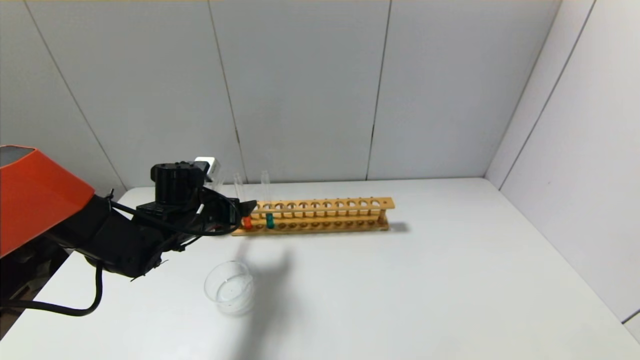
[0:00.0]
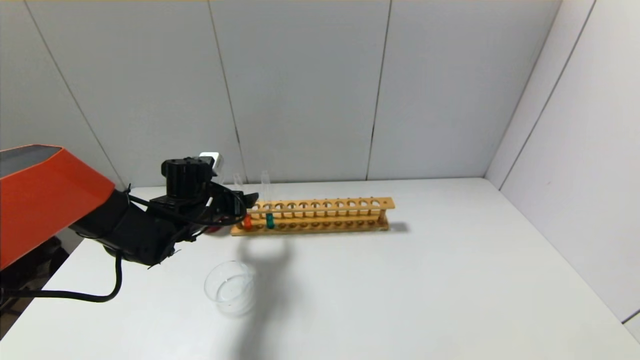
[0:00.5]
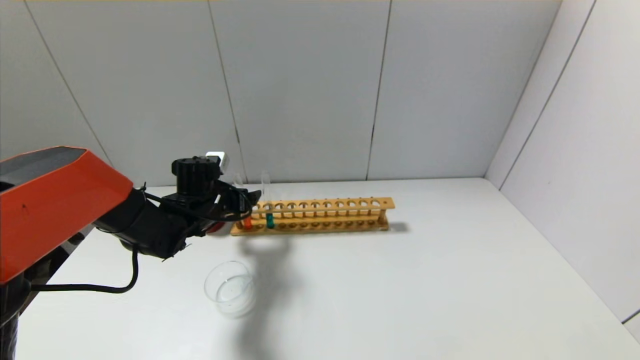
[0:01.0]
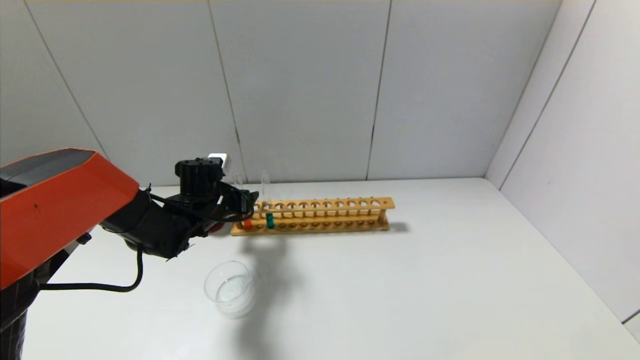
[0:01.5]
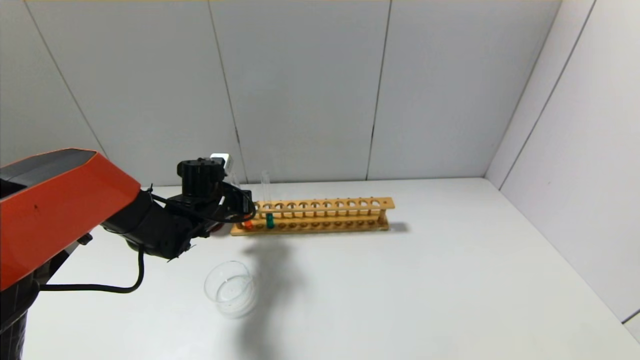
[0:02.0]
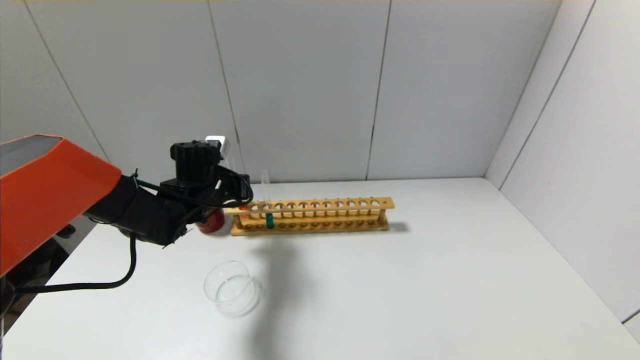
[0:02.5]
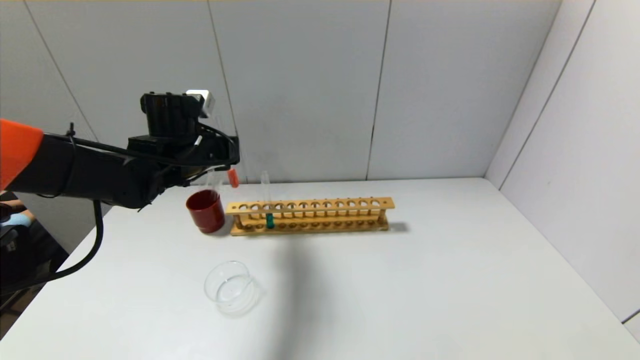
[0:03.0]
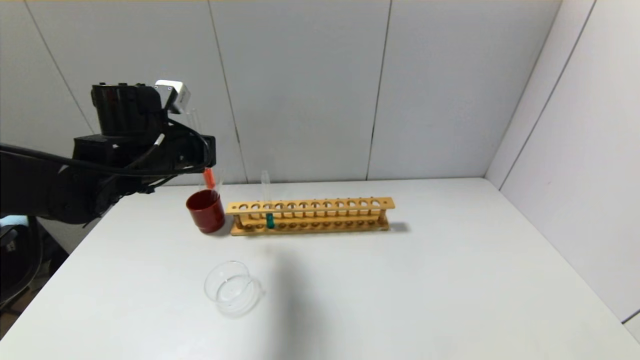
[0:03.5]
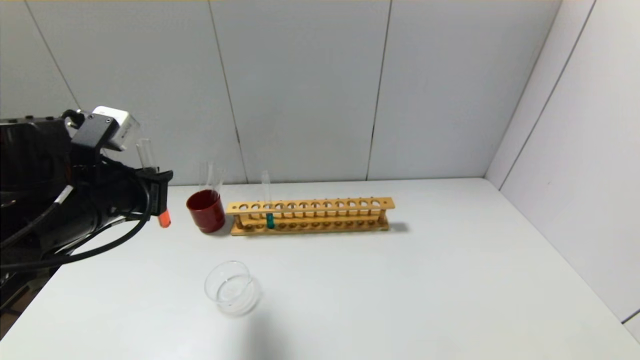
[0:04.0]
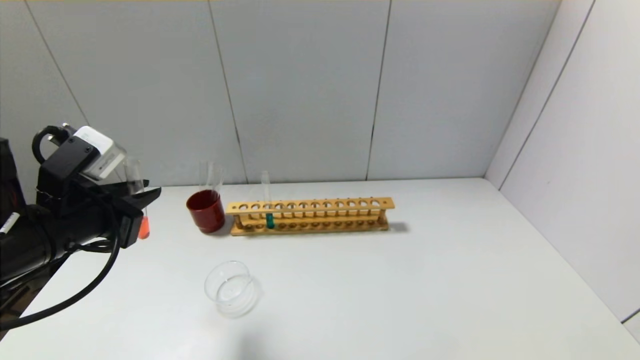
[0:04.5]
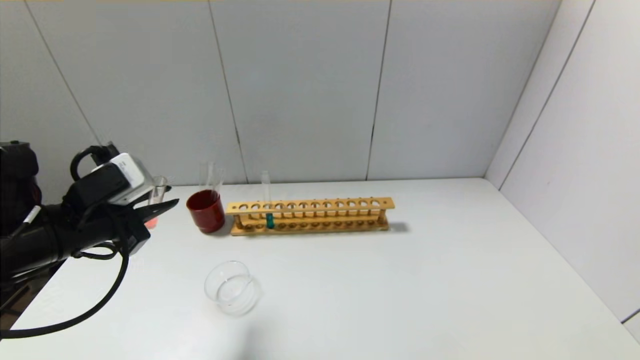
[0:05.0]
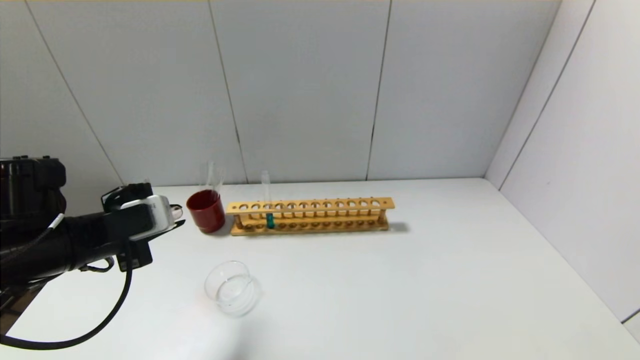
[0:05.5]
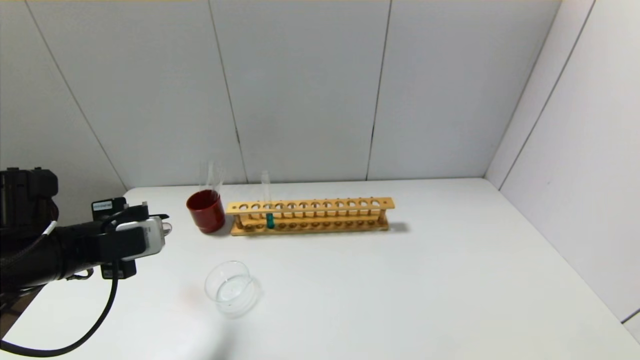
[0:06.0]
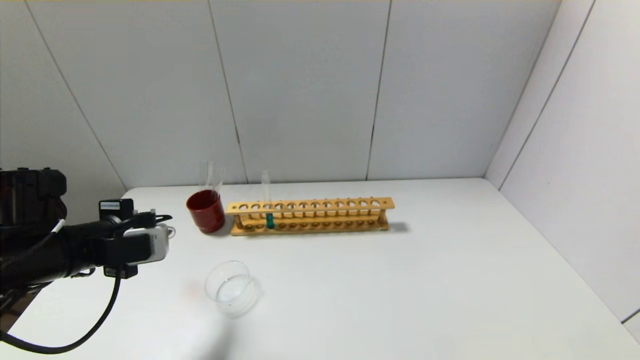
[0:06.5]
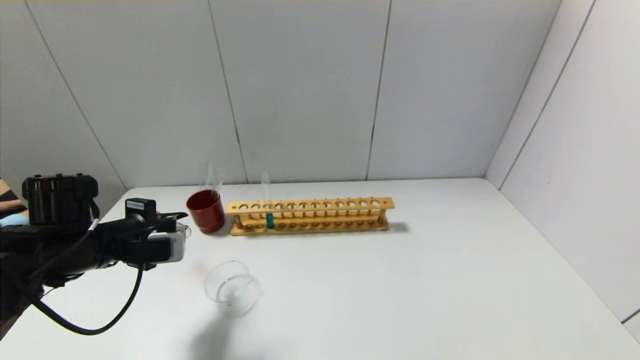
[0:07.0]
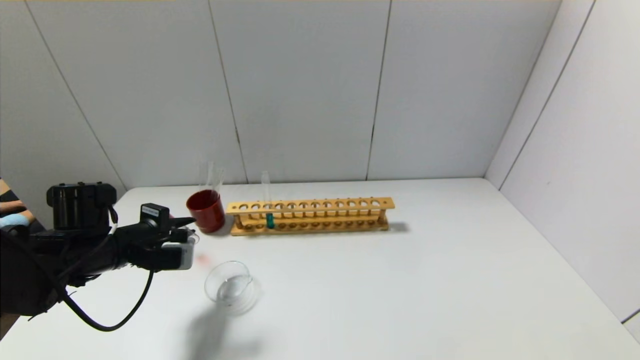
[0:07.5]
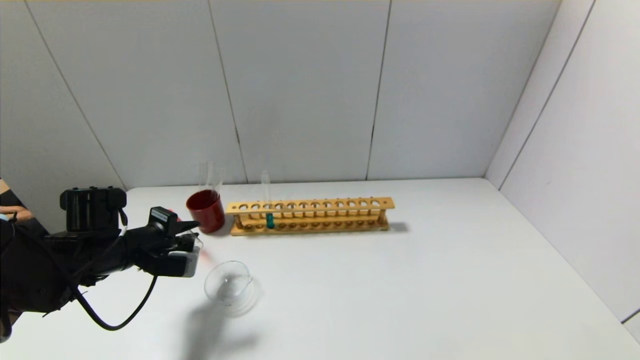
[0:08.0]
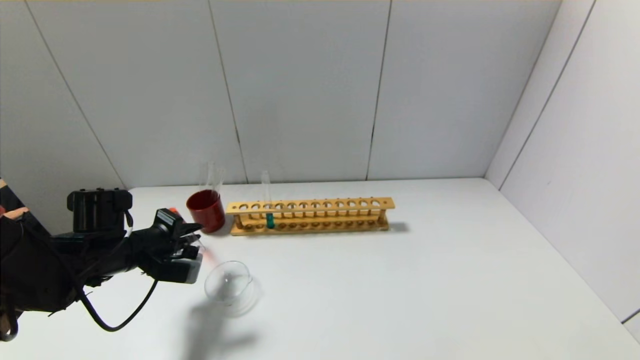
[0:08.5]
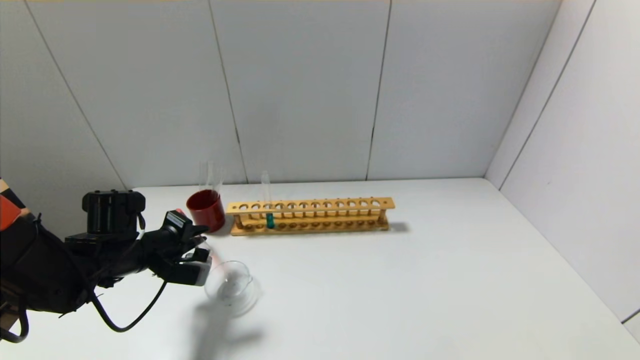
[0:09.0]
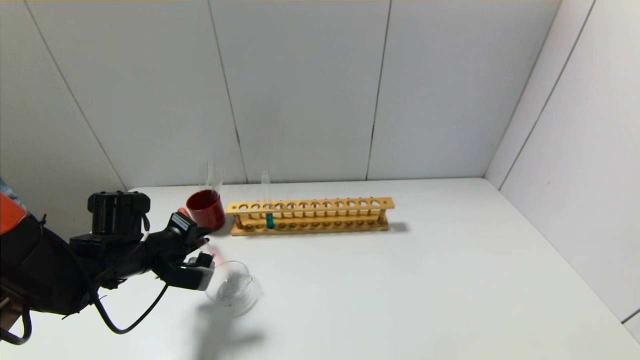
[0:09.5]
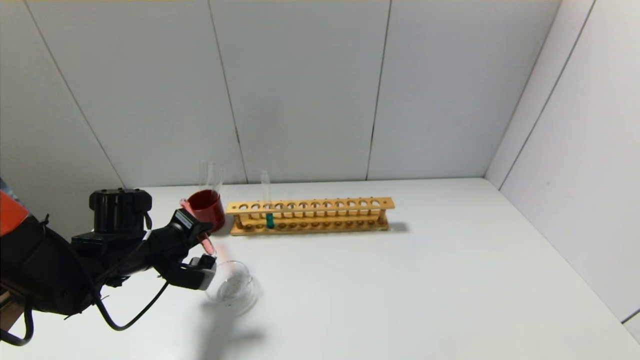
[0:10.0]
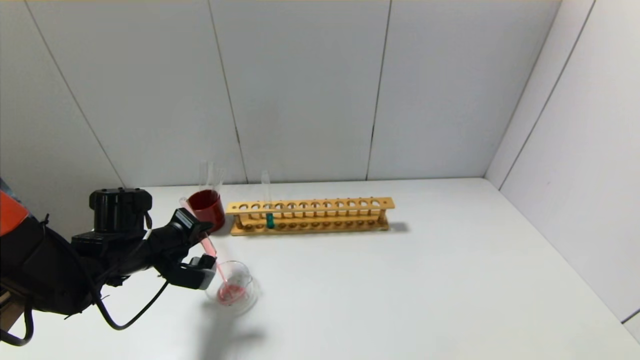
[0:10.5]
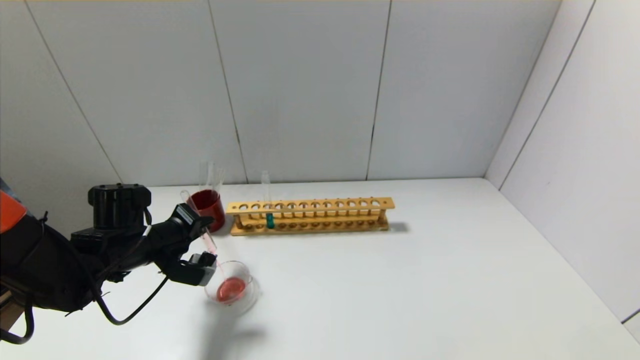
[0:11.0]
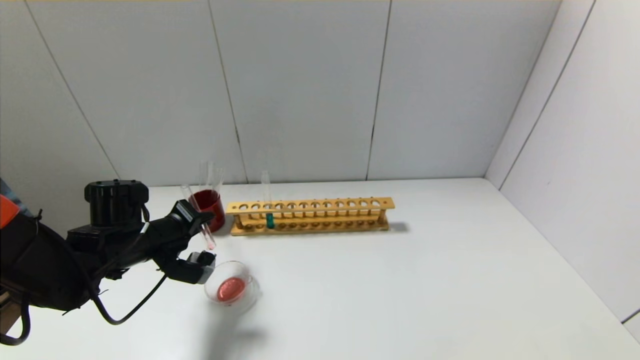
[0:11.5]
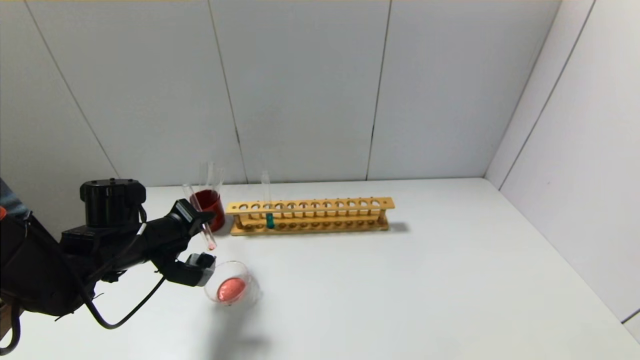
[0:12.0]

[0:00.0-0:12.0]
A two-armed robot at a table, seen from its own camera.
0:00.0 to 0:02.0: The left gripper closes up.
0:02.0 to 0:04.0: The left gripper travels backward and upward by approximately 20 cm.
0:04.0 to 0:06.0: The left gripper goes roughly 5 cm downward.
0:06.0 to 0:08.0: The left gripper goes some 10 cm downward and forward.
0:08.0 to 0:10.0: There are only small adjustments of the grippers.
0:10.0 to 0:12.0: The grippers stay close to where they were, moving slightly.

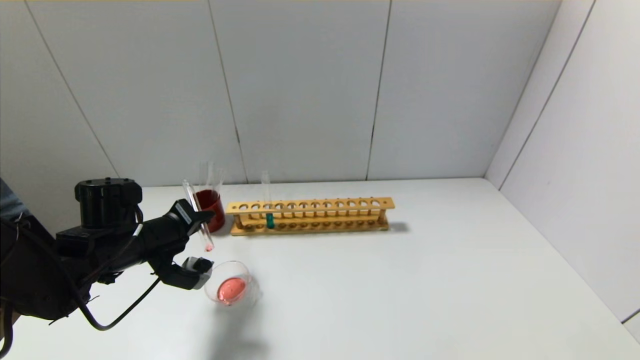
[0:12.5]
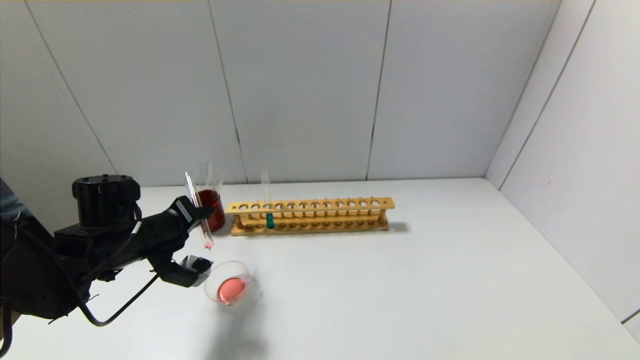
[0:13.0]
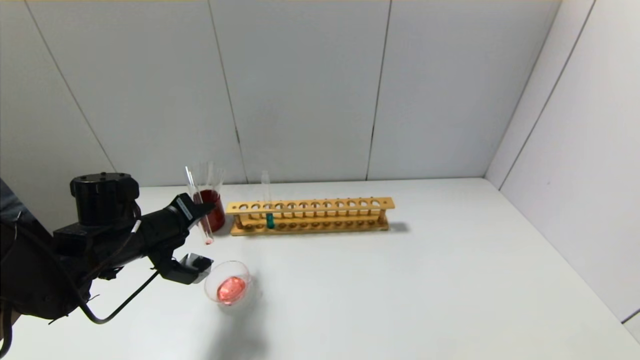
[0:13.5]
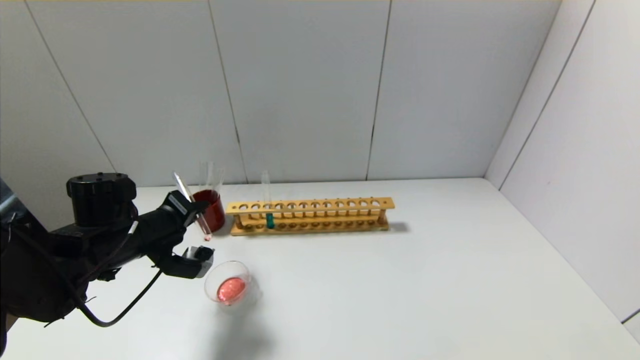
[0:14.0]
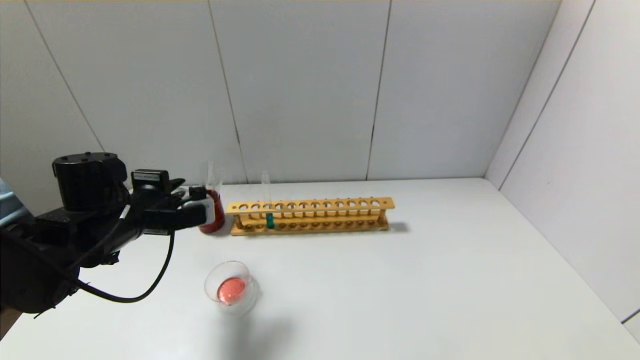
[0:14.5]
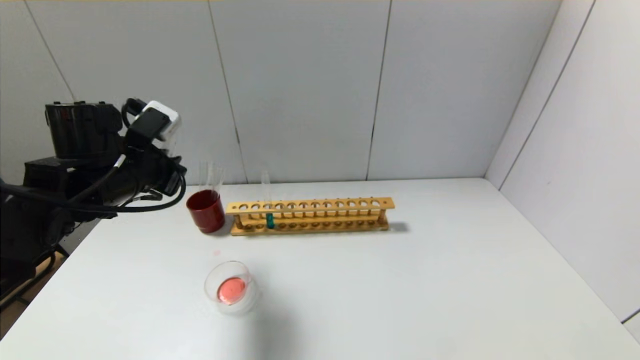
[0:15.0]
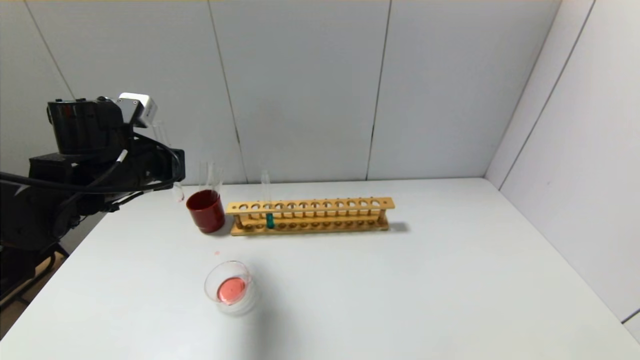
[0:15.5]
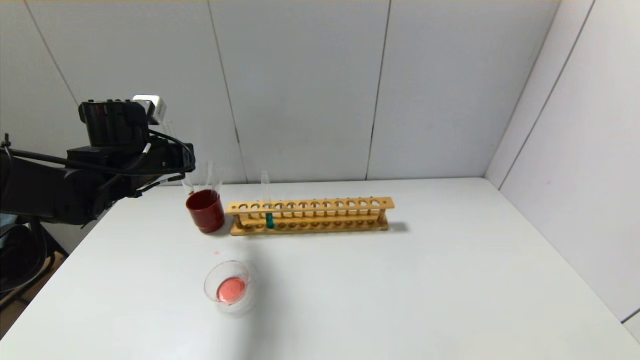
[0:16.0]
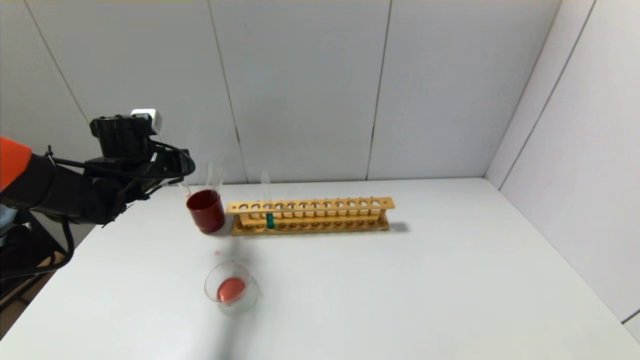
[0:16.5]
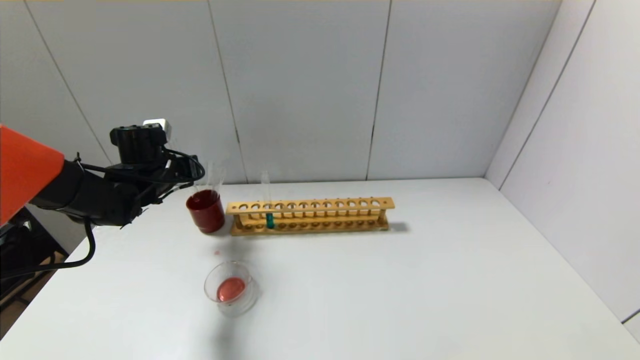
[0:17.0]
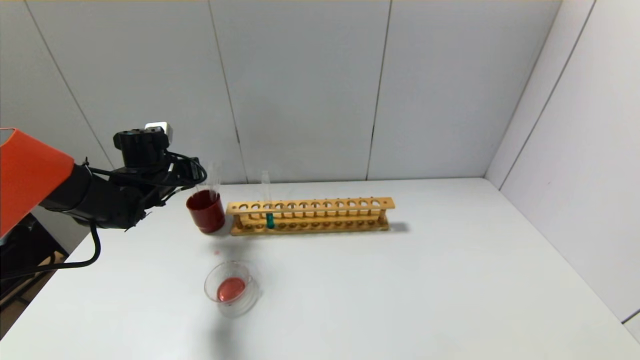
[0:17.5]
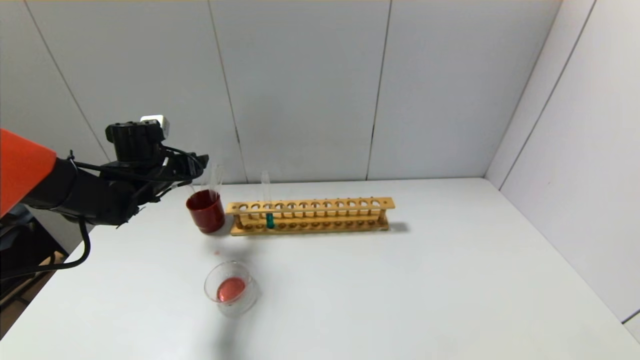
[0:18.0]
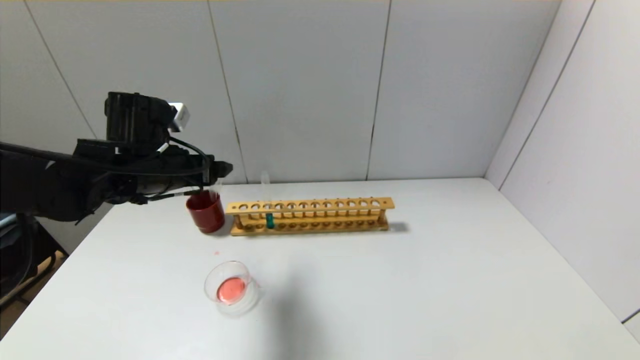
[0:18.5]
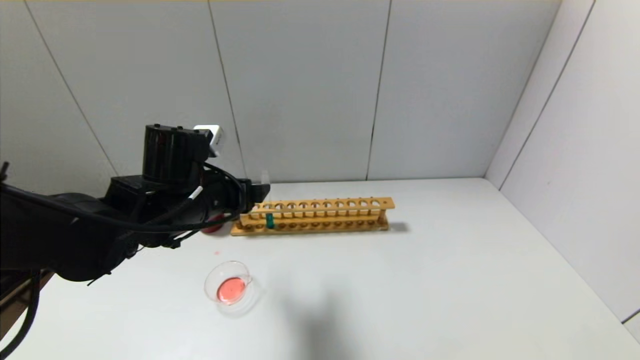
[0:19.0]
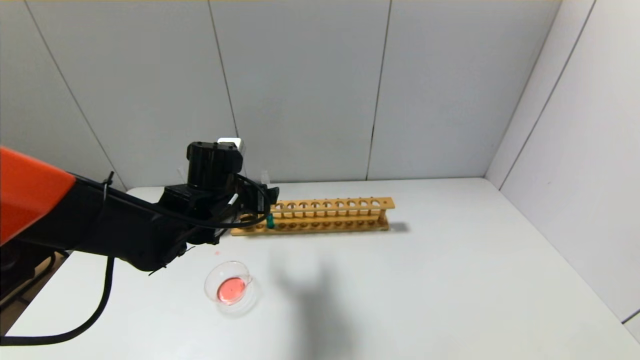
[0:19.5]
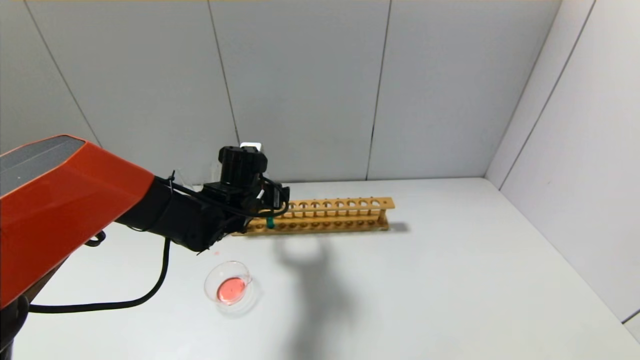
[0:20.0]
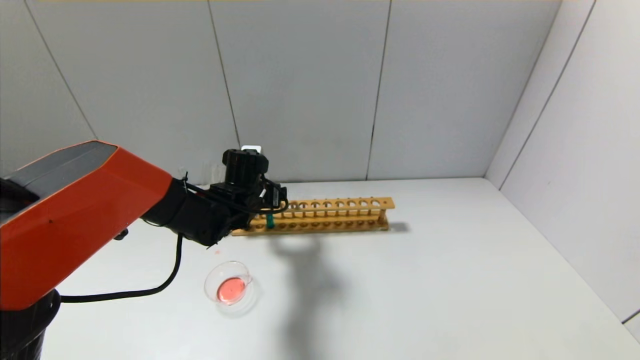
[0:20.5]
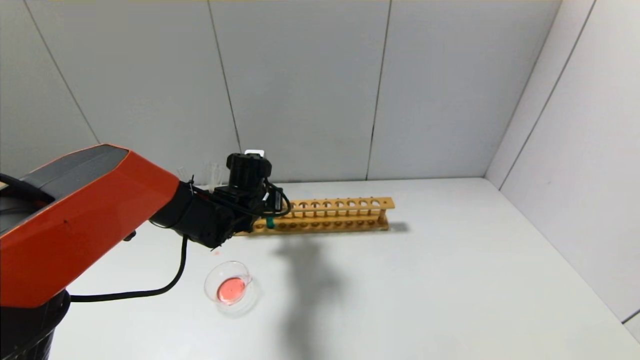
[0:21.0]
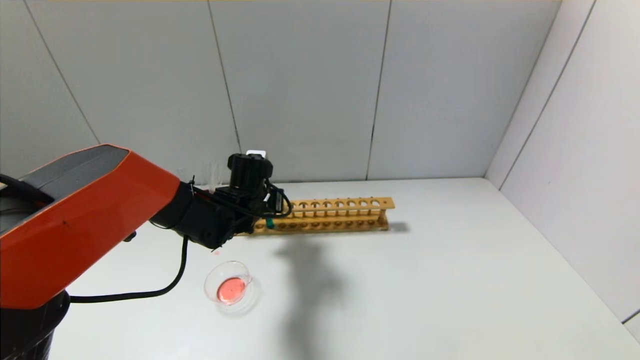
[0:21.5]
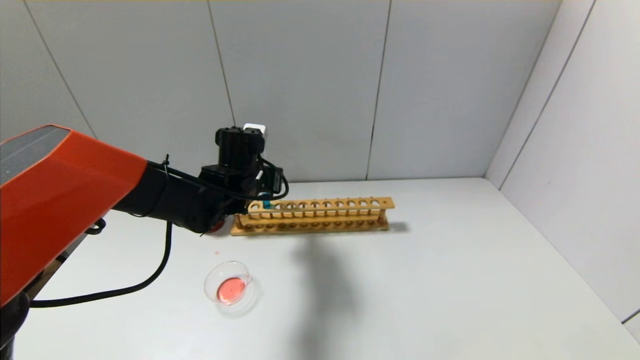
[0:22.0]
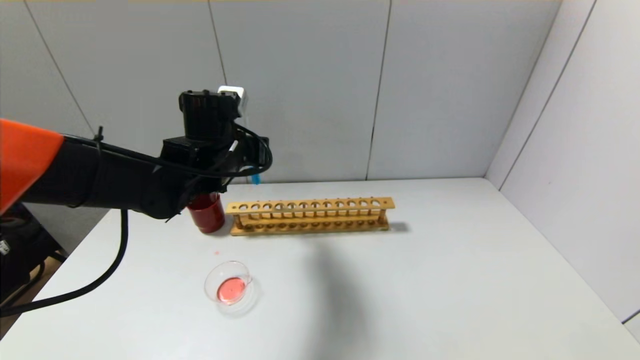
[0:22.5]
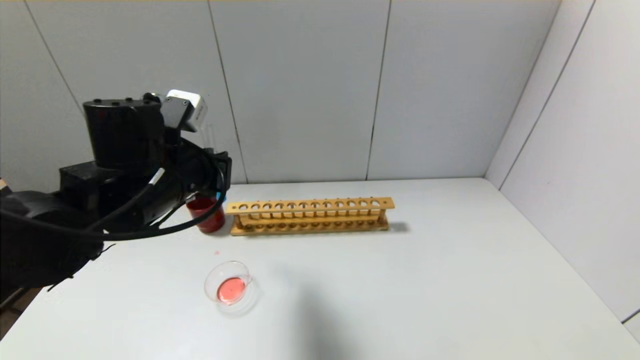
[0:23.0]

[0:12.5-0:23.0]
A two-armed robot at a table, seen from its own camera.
Step, 0:14.5 to 0:17.5: Place the test tube into the brown cup with the left gripper.
Step, 0:18.0 to 0:21.0: Grasp the blue reagent with the left gripper.
0:14.5 to 0:16.5: The left gripper shifts approximately 10 cm forward.
0:16.5 to 0:19.0: The left gripper goes approximately 15 cm to the right and backward, and opens its fingers.
0:19.0 to 0:21.0: The left gripper travels forward and downward by about 15 cm, and closes.
0:21.0 to 0:23.0: The left gripper heads backward, upward and to the left, covering about 20 cm.
